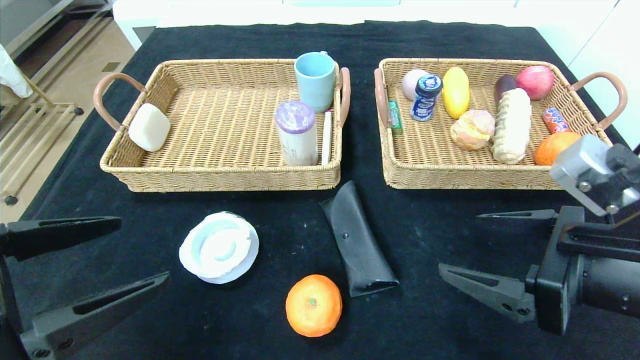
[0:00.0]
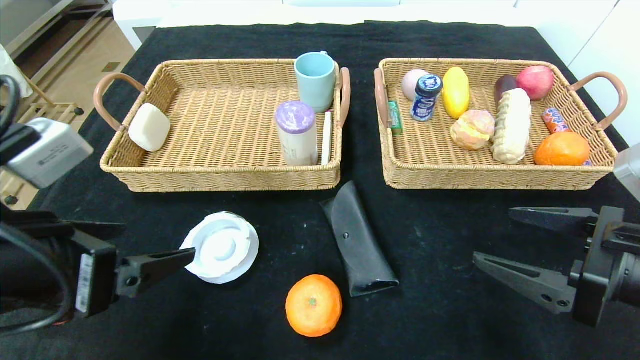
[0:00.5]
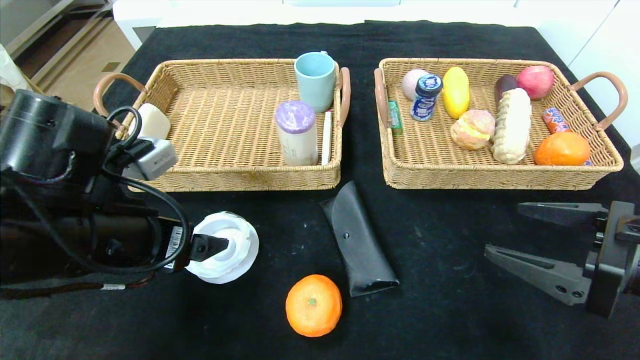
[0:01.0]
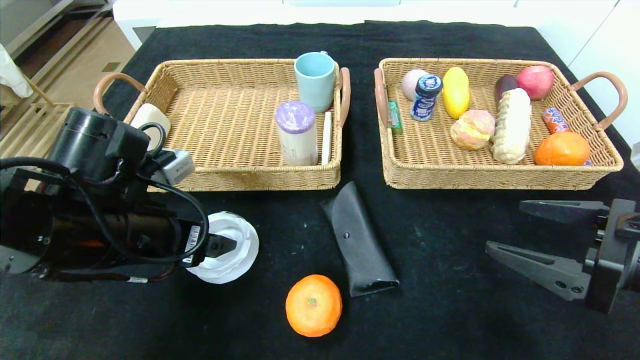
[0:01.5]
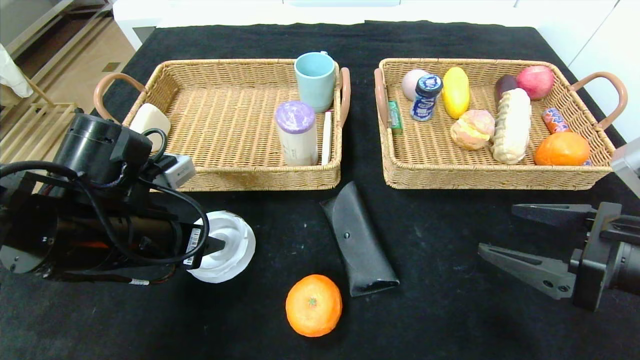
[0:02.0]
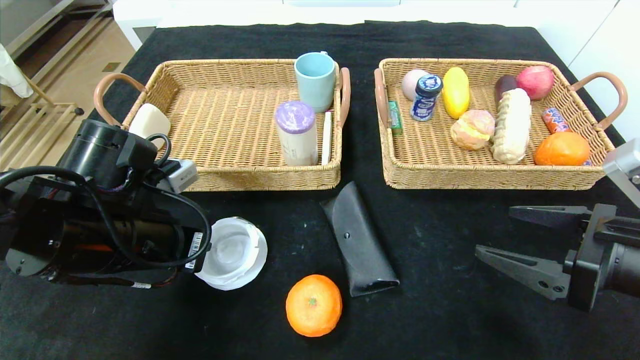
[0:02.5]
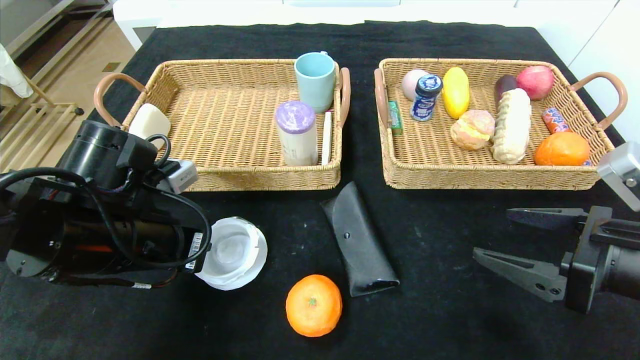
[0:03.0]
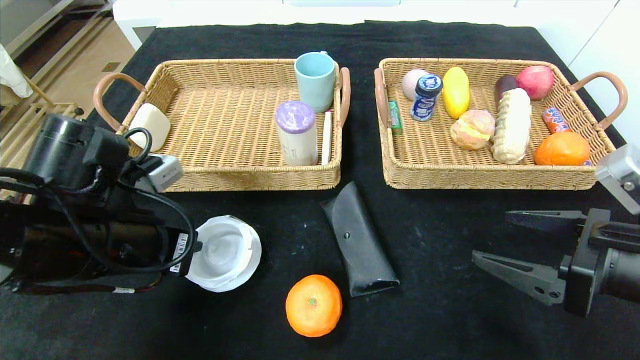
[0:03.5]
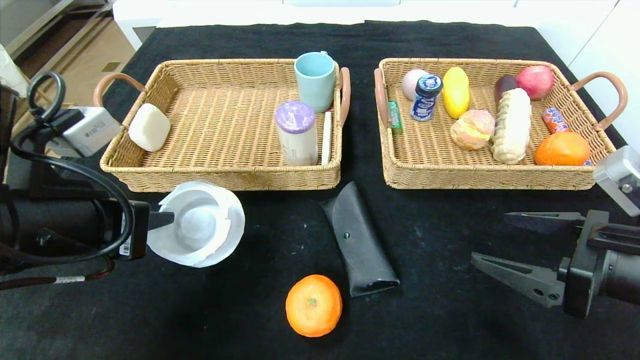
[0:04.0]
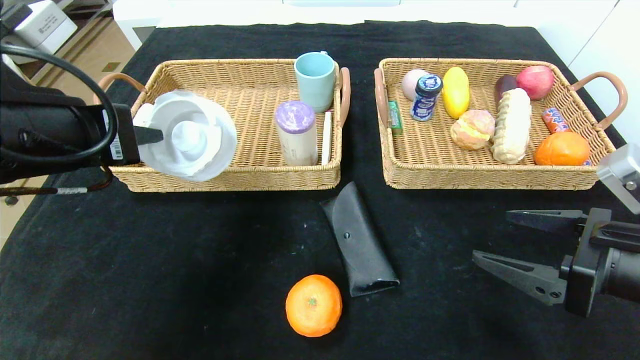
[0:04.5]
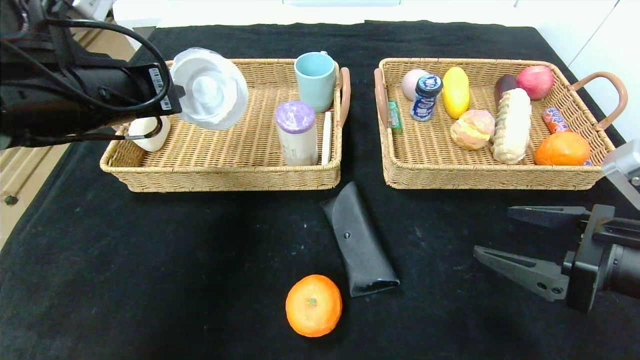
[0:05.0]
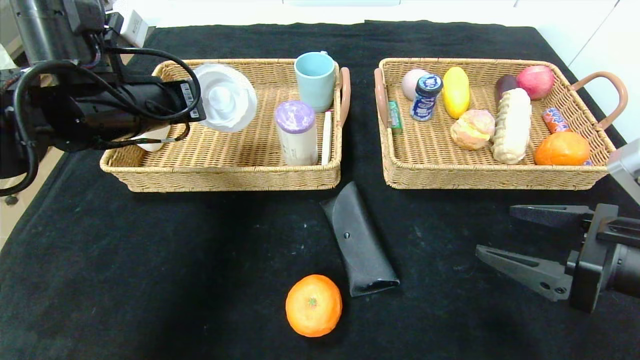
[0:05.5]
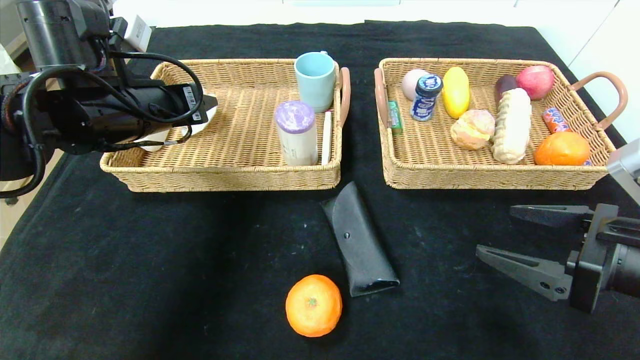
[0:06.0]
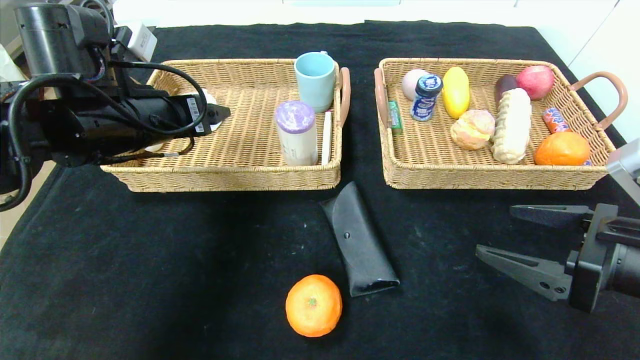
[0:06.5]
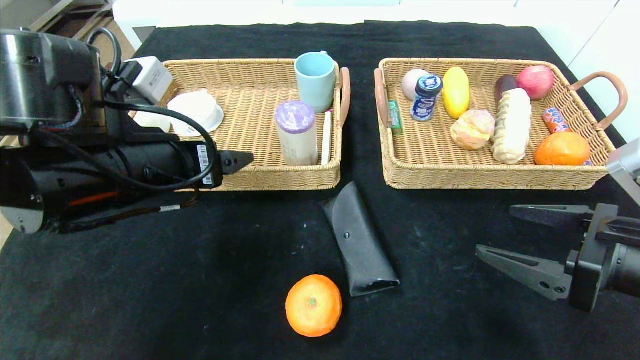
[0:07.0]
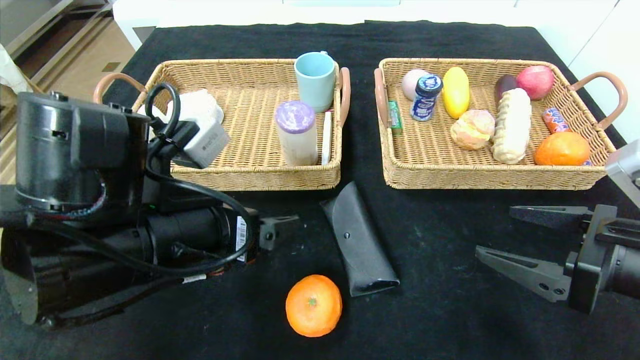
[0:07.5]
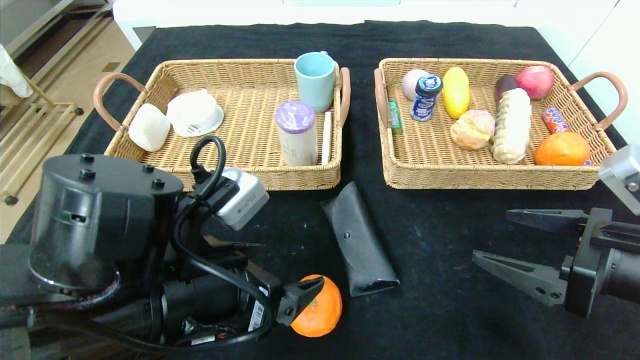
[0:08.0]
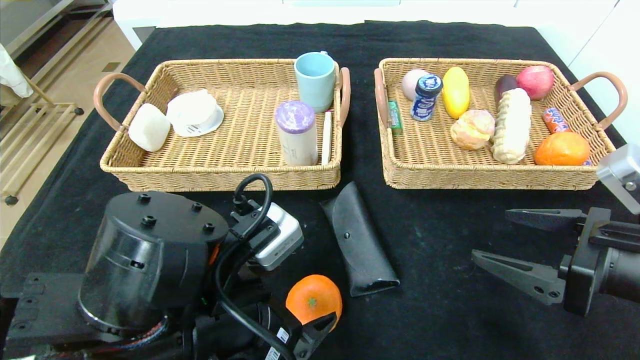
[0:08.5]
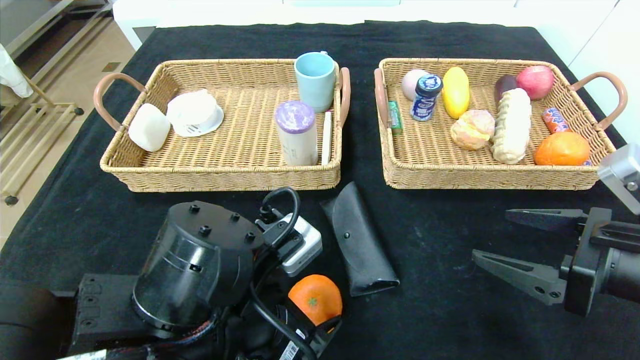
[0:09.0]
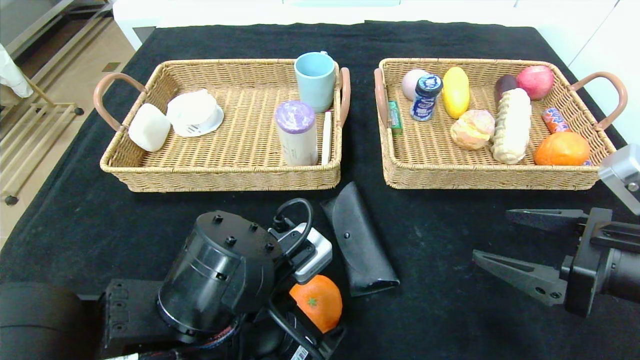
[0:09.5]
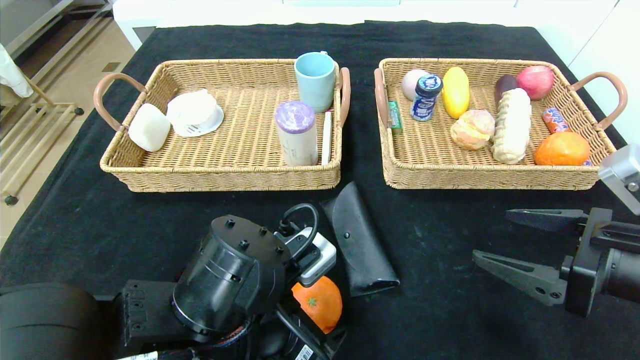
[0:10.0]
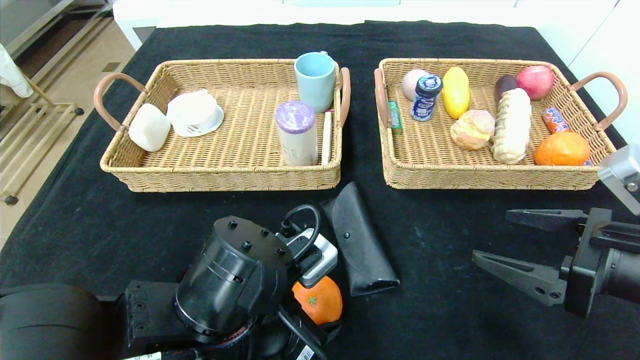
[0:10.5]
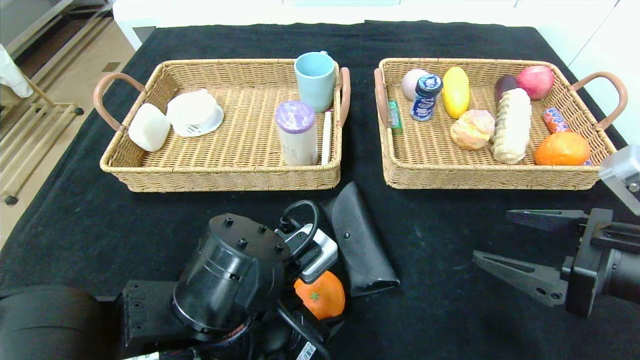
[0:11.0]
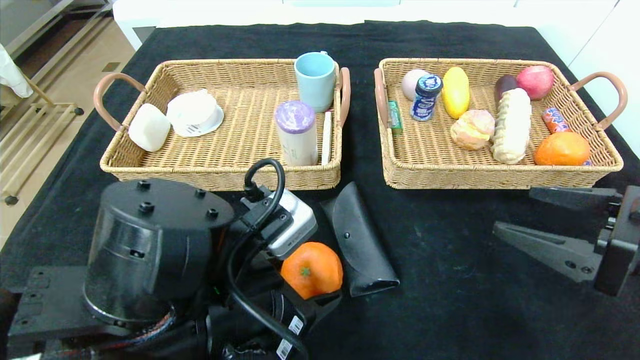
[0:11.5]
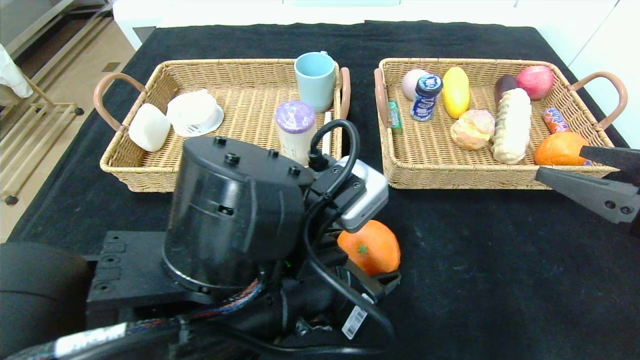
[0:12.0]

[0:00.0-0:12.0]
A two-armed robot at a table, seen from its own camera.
Step, 0:00.0 to 0:06.0: Grasp the tape and put it in the left basket.
0:00.0 to 0:02.0: The left gripper moves forward, roughly 15 cm, and closes its fingers; the right gripper changes place by roughly 5 cm.
0:02.0 to 0:04.0: The left gripper shifts approximately 5 cm backward and upward, and closes.
0:04.0 to 0:06.0: The left gripper moves forward, about 15 cm, and opens its fingers.
0:06.0 to 0:08.0: The left gripper is displaced backward, to the right and downward by about 20 cm, and opens its fingers.
0:08.0 to 0:10.0: The left gripper changes place by approximately 5 cm.
0:10.0 to 0:12.0: Both grippers move upward, roughly 5 cm.

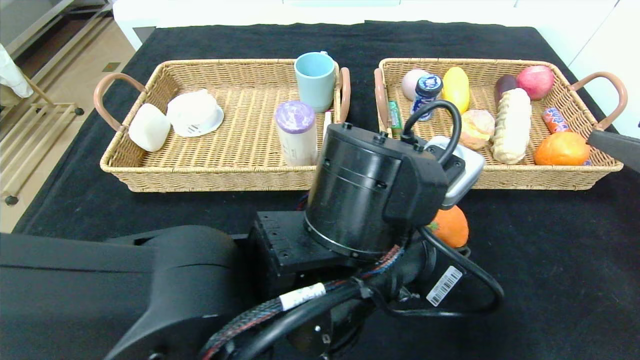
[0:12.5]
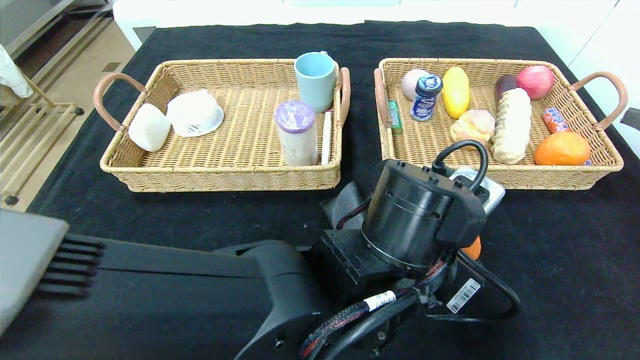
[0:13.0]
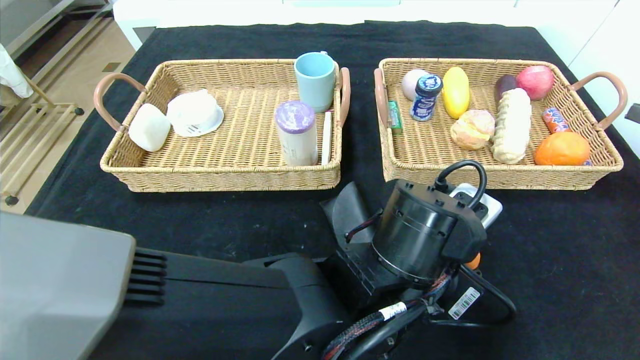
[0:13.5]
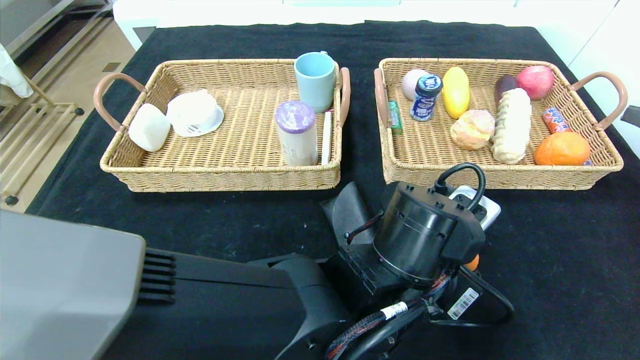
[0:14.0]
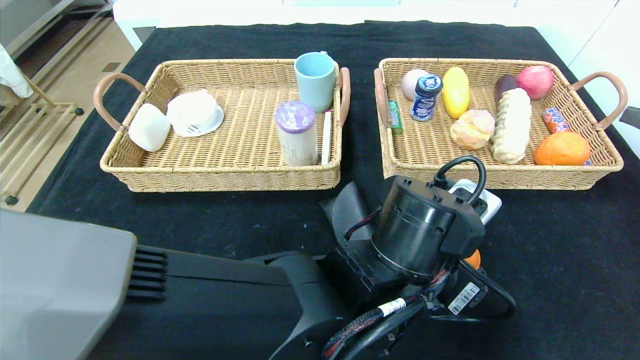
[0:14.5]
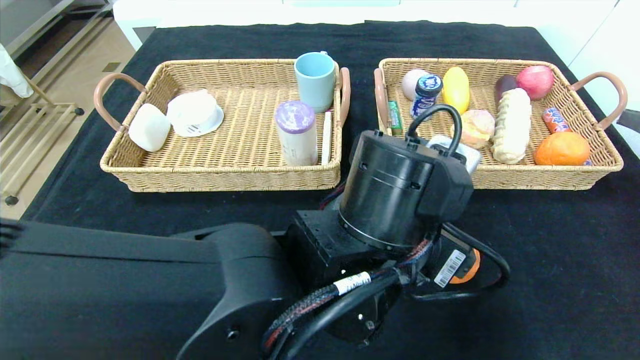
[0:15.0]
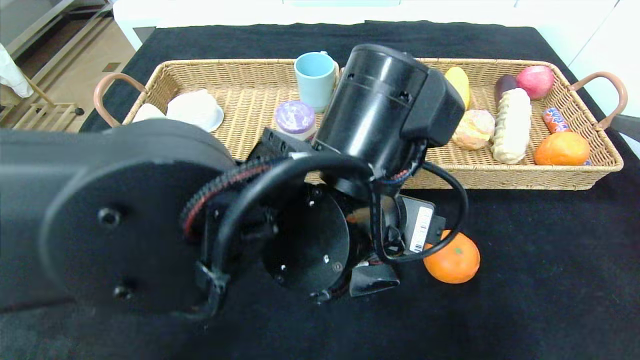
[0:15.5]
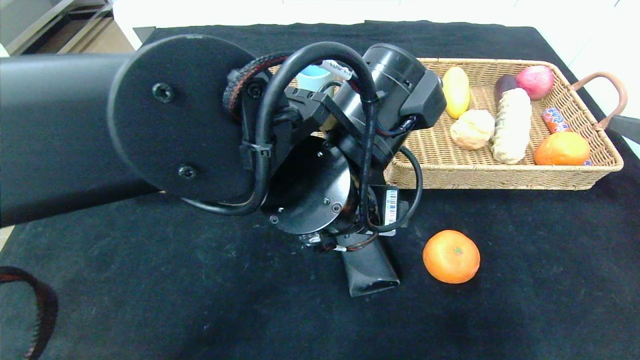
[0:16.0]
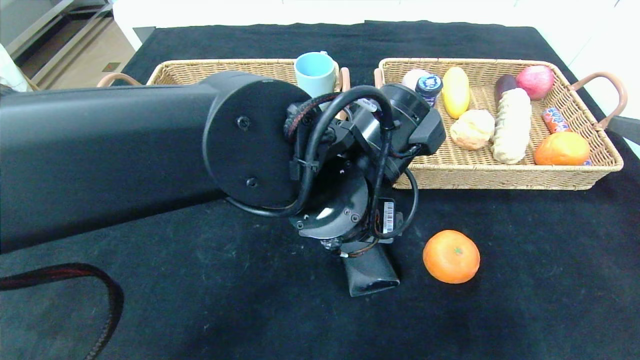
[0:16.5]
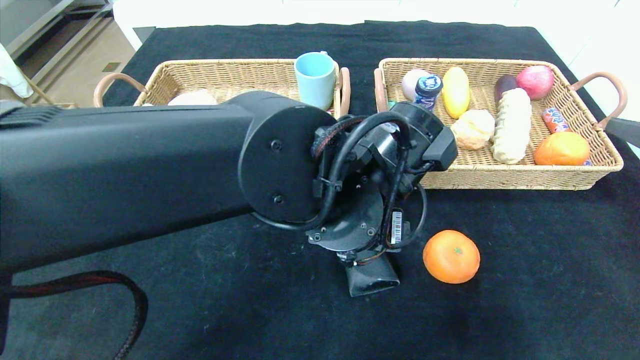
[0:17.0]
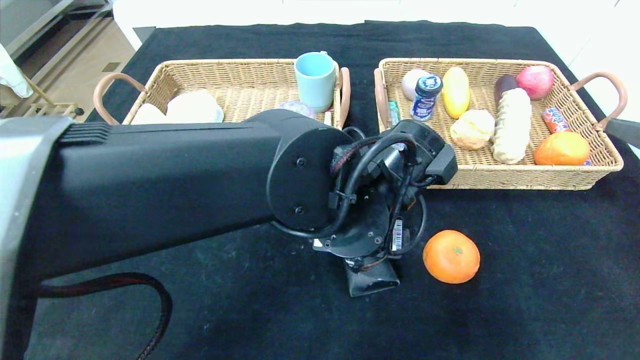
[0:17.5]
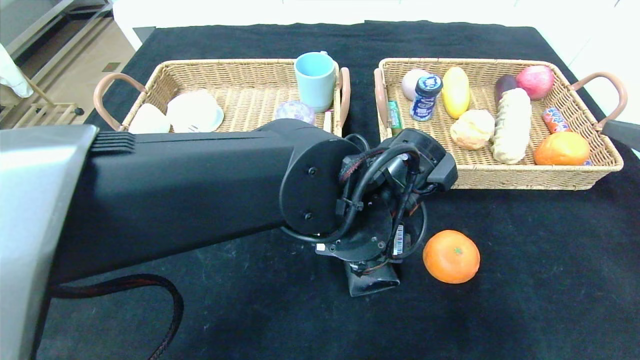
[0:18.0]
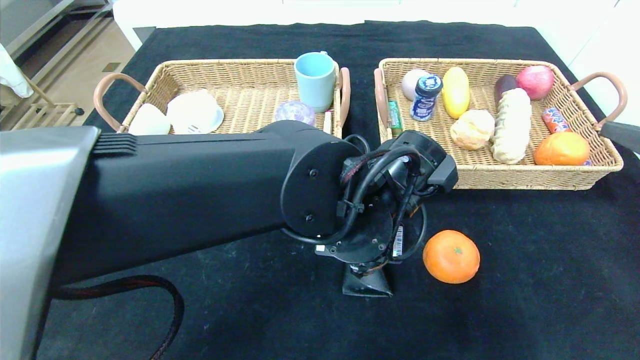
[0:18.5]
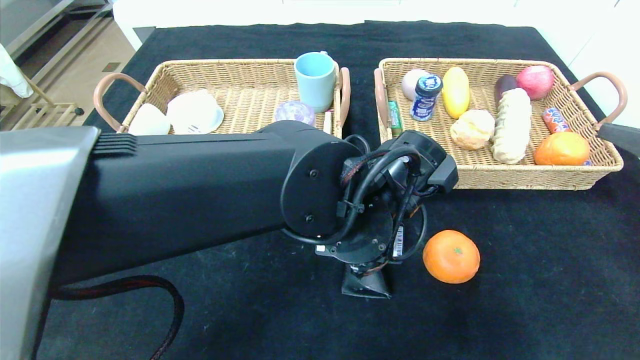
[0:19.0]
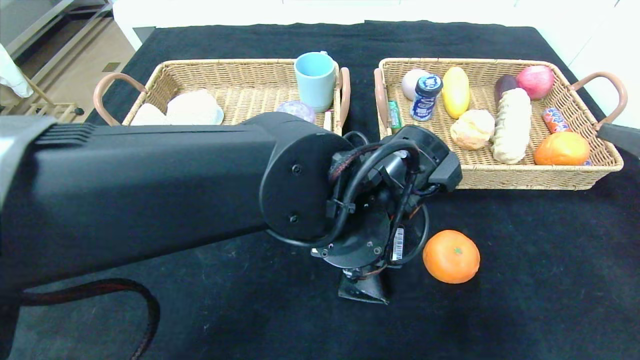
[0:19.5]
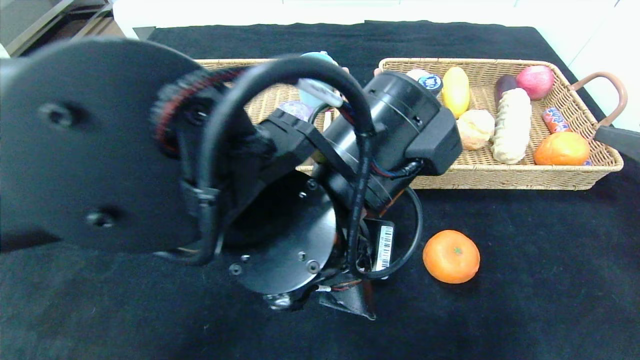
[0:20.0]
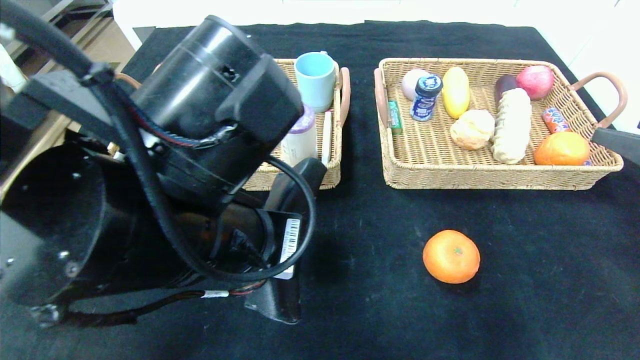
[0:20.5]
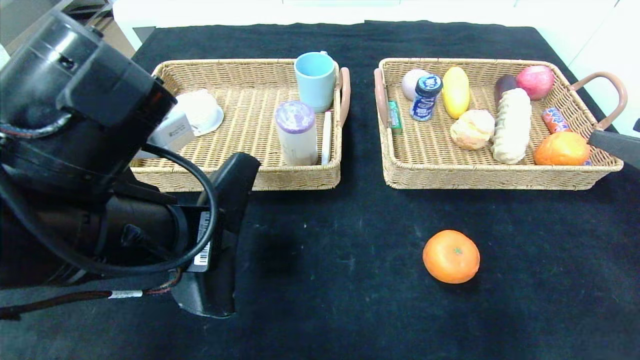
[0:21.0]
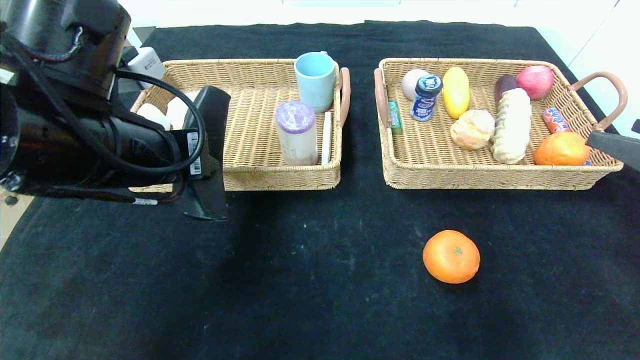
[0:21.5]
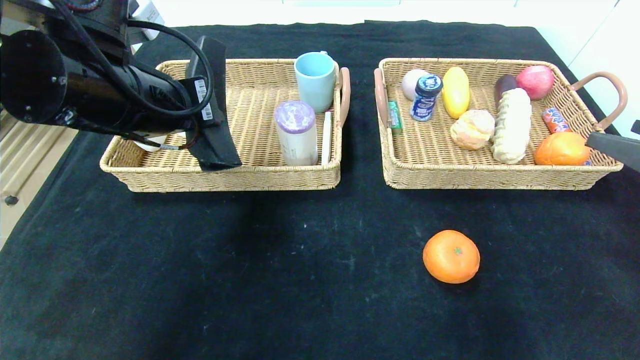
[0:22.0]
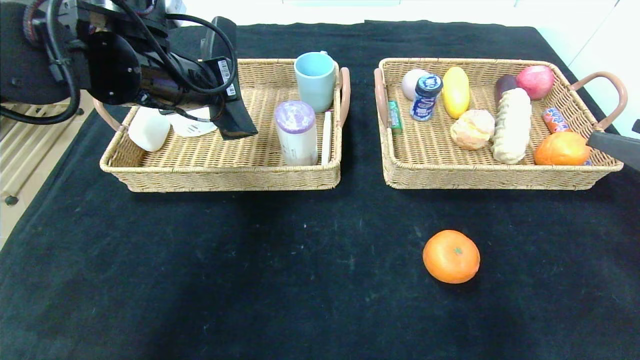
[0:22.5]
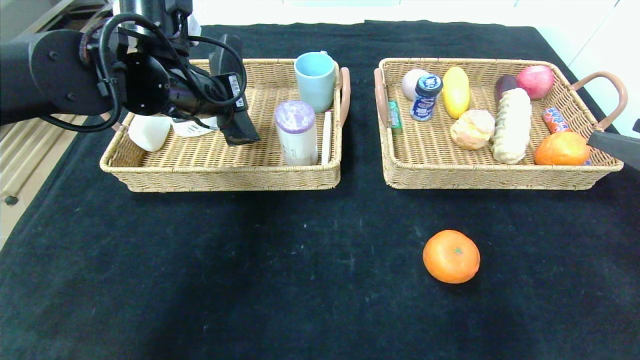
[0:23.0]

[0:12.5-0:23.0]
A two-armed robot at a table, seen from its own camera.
Step, 0:12.5 to 0:14.5: Place the orange in the center of the table.
0:12.5 to 0:14.5: The left gripper moves some 5 cm.
0:14.5 to 0:16.5: The left gripper travels upward and to the left by some 10 cm.
0:16.5 to 0:19.0: The left gripper closes its fingers.
0:19.0 to 0:21.0: The left gripper shifts approximately 20 cm to the left, backward and upward.
0:21.0 to 0:23.0: The left gripper moves forward, approximately 20 cm.
